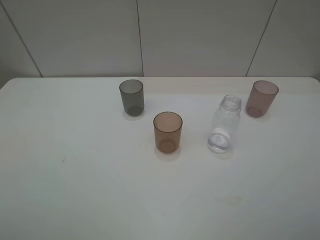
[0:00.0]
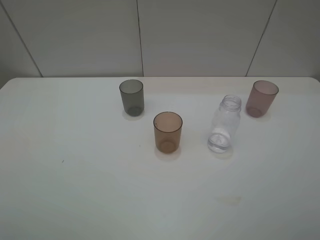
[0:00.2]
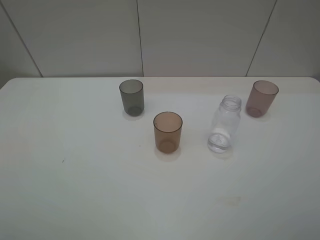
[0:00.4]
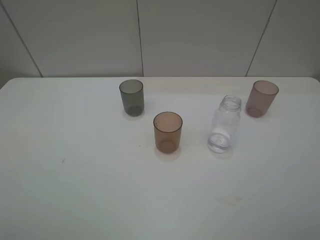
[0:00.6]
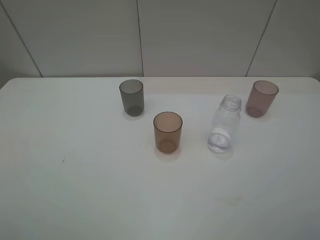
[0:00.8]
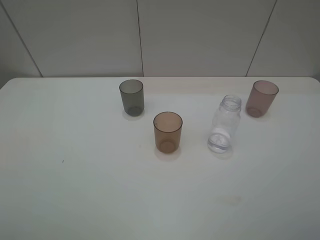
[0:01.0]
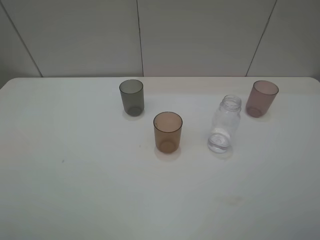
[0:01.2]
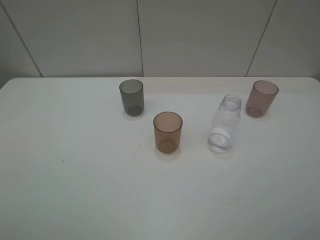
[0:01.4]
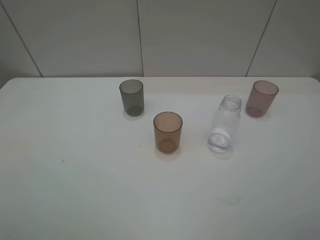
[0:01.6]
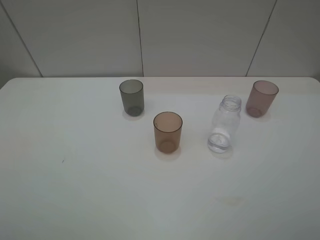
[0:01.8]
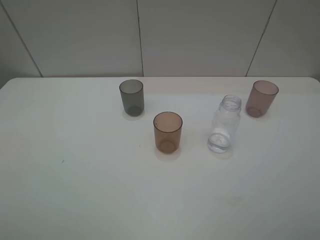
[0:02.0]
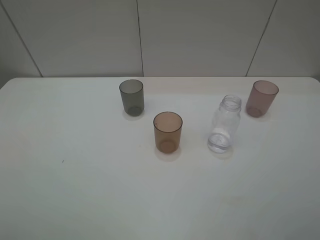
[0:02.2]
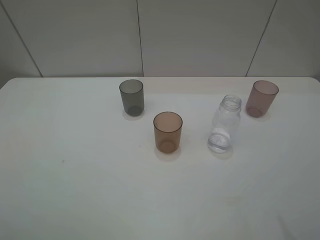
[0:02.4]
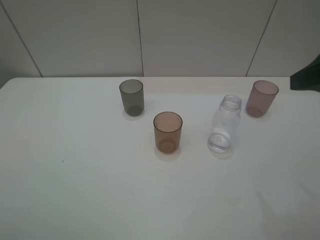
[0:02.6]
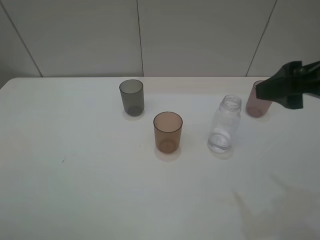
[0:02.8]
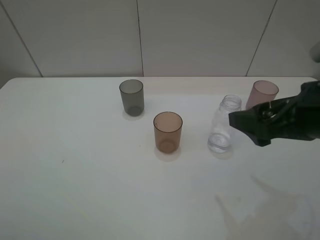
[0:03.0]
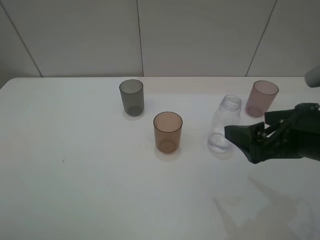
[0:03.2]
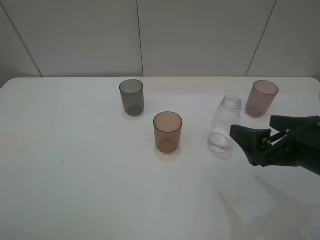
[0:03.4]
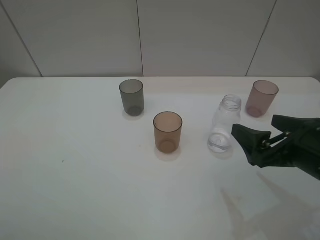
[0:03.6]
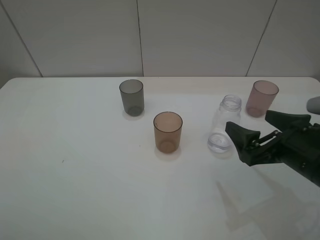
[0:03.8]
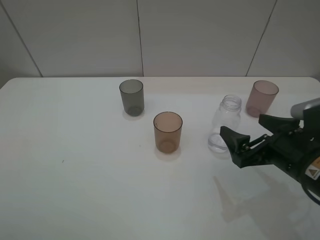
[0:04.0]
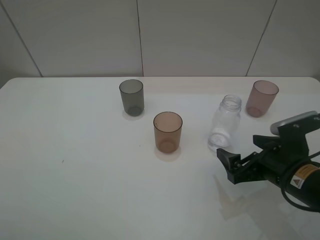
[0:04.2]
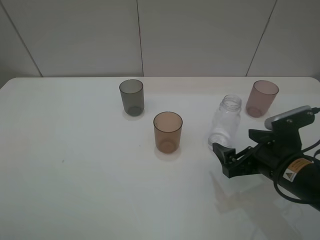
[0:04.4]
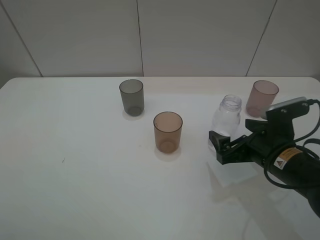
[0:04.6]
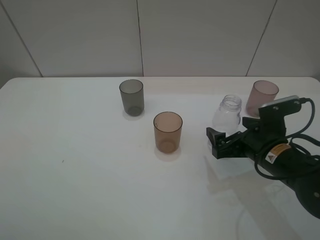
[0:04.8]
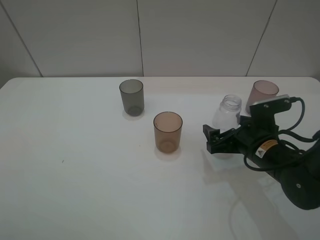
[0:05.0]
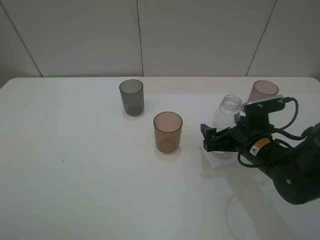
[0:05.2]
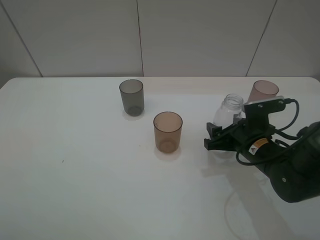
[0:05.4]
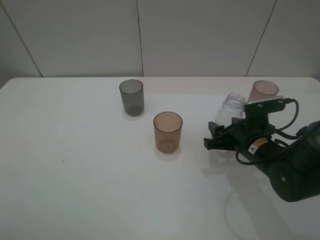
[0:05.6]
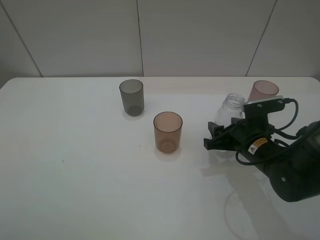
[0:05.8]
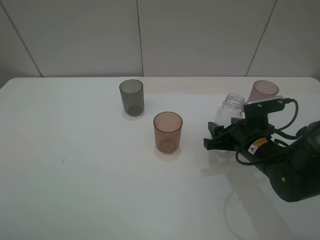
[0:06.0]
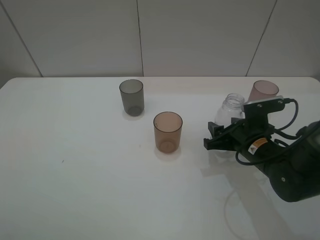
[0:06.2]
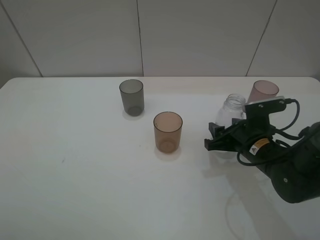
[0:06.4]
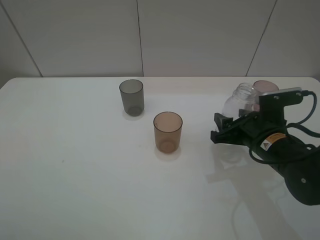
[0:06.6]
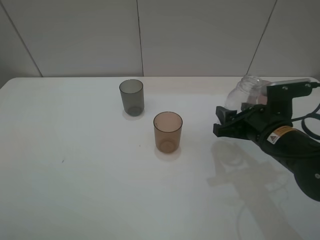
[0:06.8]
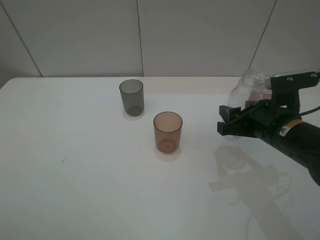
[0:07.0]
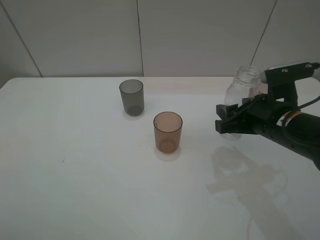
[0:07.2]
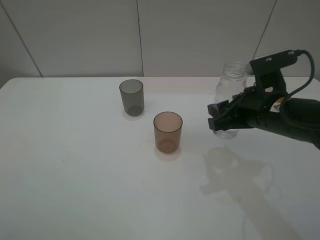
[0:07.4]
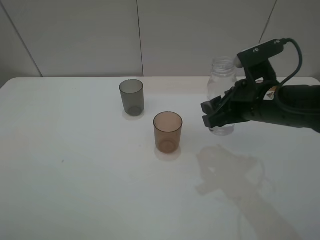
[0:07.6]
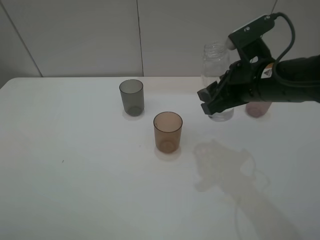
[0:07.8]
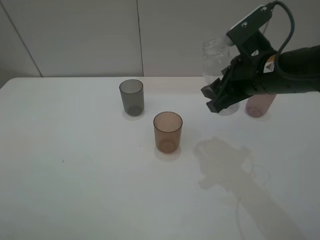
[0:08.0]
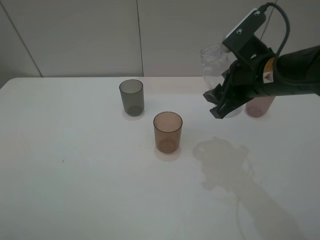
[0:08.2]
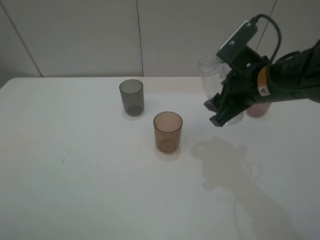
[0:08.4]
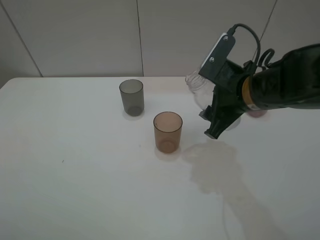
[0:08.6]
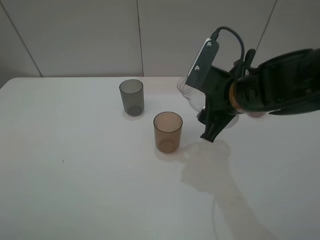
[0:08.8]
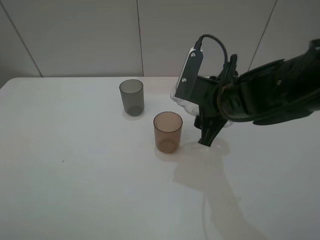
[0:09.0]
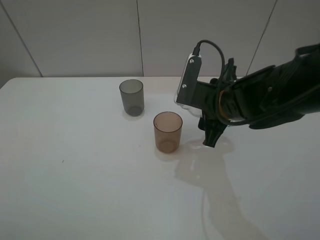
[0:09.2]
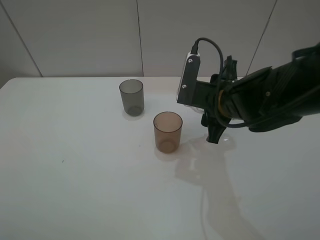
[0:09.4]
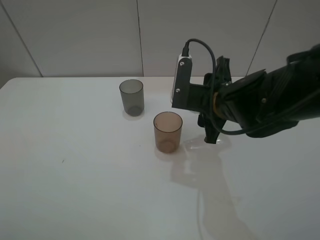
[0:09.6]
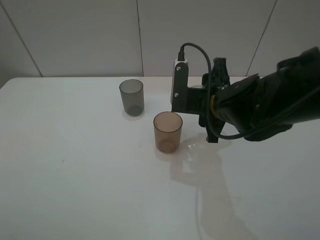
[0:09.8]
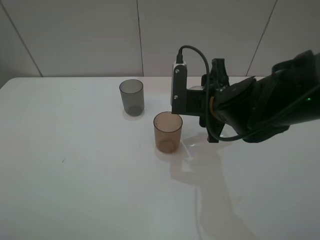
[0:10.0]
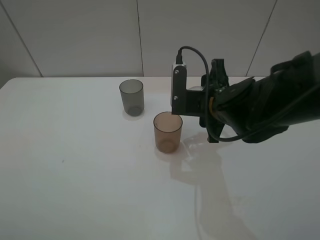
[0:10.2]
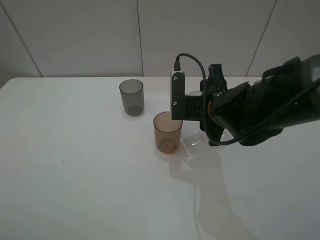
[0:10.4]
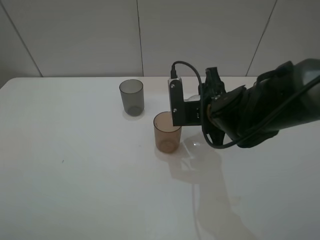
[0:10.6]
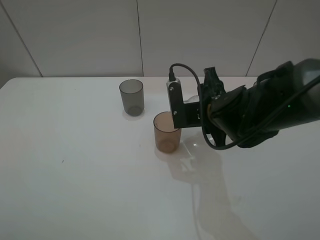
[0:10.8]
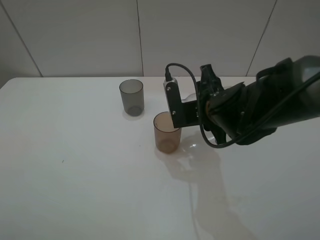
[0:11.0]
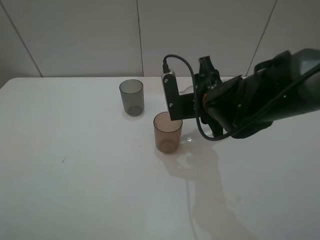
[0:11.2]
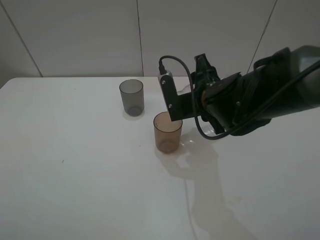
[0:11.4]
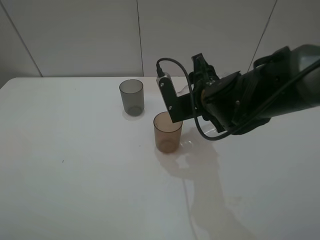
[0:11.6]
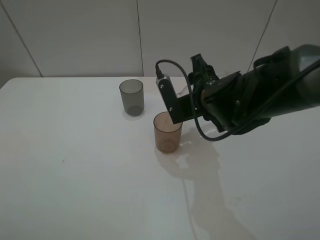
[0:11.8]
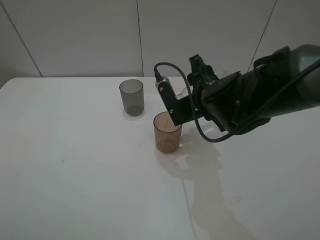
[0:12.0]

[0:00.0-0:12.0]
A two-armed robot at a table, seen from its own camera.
Task of the whole recording: pick up the bottle filled with water and pour water into the middle cup of the three cups.
Step, 0.0 to 6.4 s: Grasp the transparent bottle with the right gripper.
0.0 to 1.6 s: Both grippers stay about where they are.
1.6 to 3.0 s: The right gripper shifts roughly 15 cm forward and to the left.
3.0 to 4.4 s: The right gripper is displaced downward by roughly 15 cm.
4.4 to 6.0 s: The right gripper travels forward by some 5 cm, and closes.
6.0 to 7.6 s: The right gripper travels upward by about 10 cm.
7.6 to 9.0 s: The right gripper ends up approximately 5 cm from where it was.

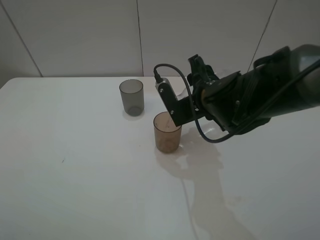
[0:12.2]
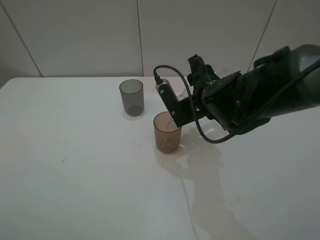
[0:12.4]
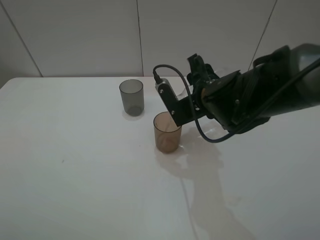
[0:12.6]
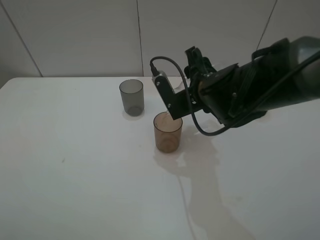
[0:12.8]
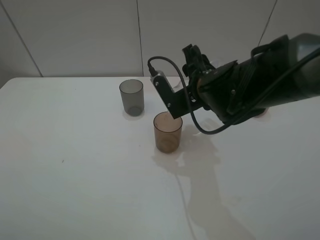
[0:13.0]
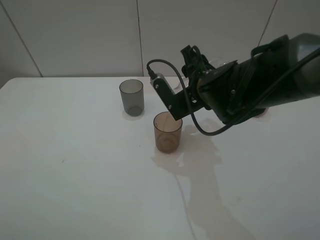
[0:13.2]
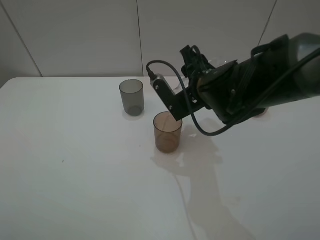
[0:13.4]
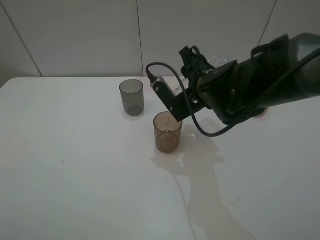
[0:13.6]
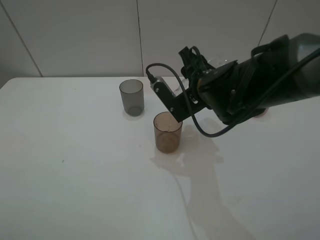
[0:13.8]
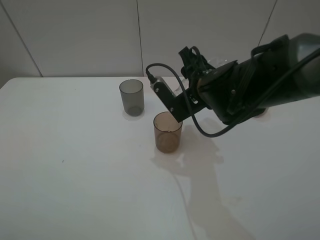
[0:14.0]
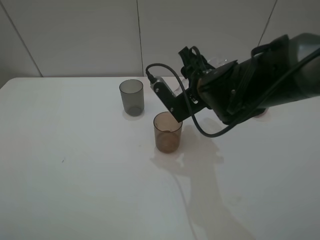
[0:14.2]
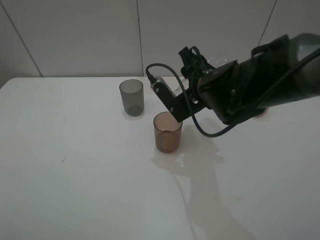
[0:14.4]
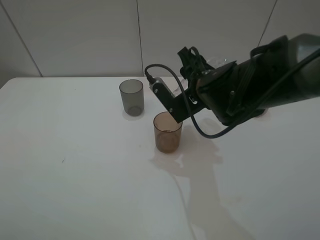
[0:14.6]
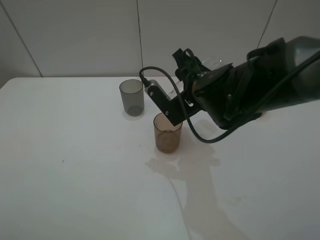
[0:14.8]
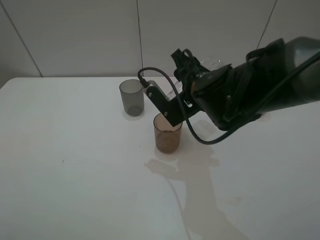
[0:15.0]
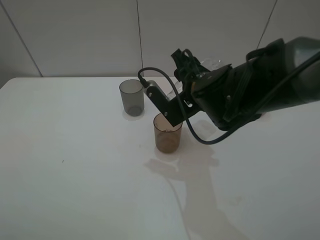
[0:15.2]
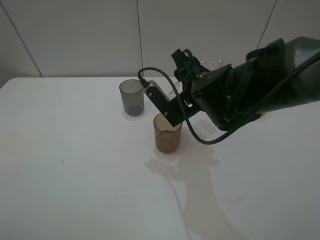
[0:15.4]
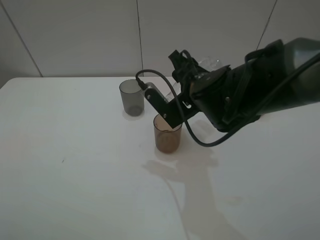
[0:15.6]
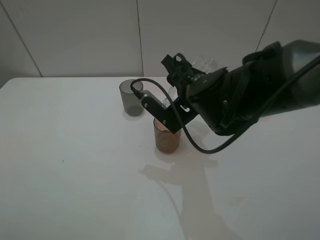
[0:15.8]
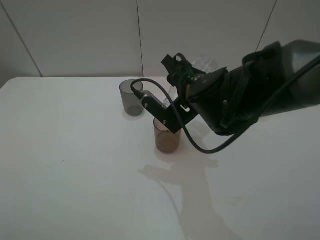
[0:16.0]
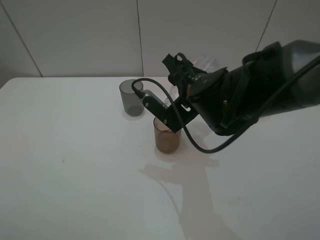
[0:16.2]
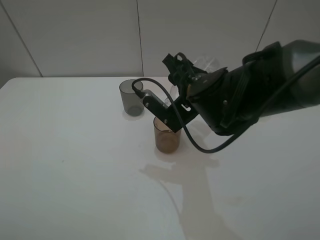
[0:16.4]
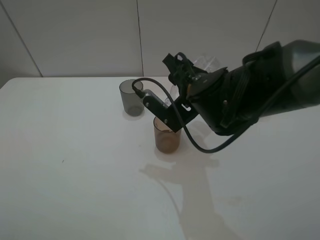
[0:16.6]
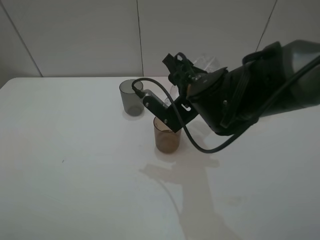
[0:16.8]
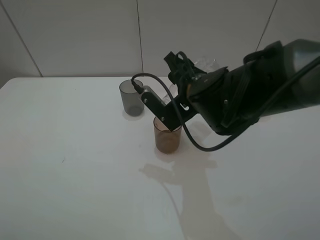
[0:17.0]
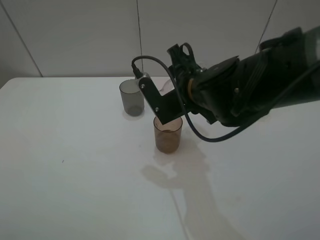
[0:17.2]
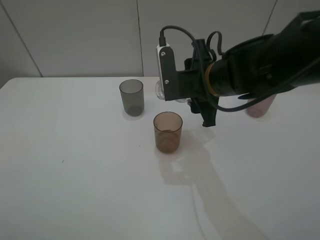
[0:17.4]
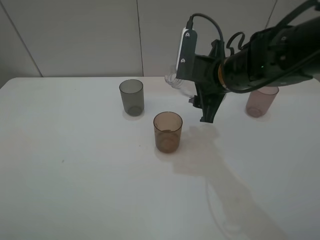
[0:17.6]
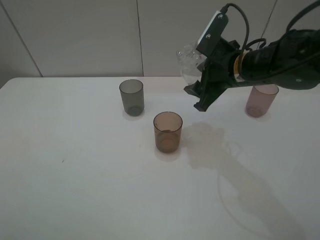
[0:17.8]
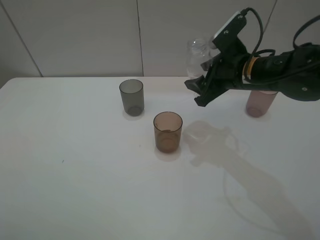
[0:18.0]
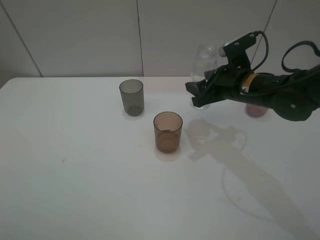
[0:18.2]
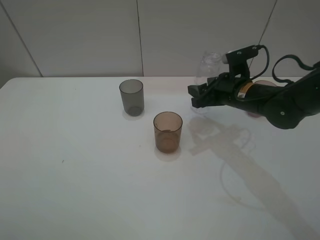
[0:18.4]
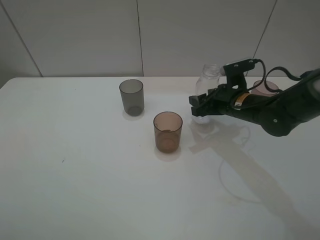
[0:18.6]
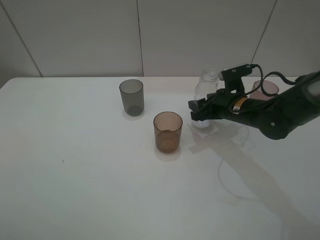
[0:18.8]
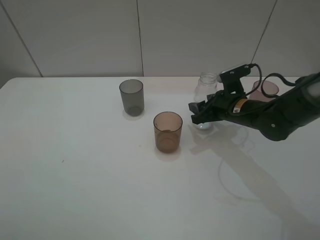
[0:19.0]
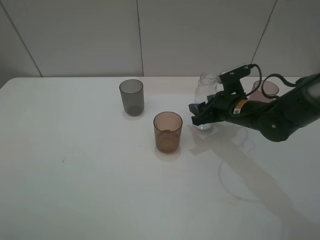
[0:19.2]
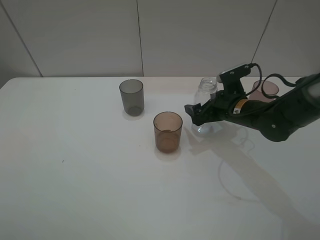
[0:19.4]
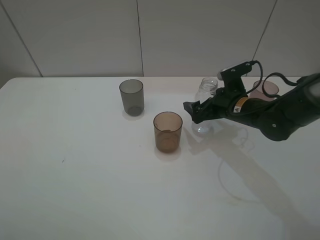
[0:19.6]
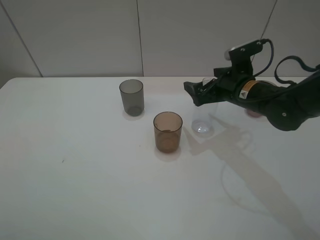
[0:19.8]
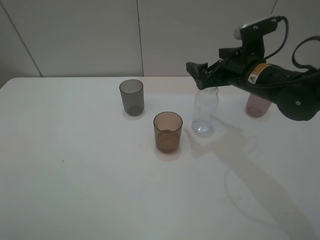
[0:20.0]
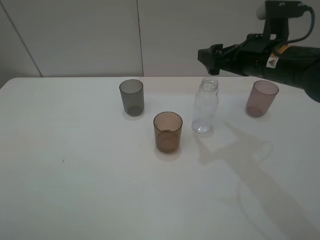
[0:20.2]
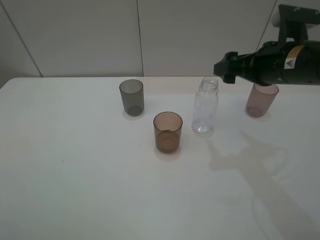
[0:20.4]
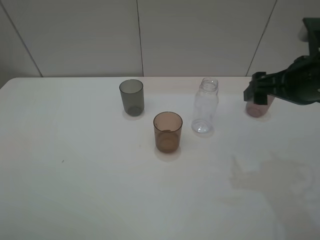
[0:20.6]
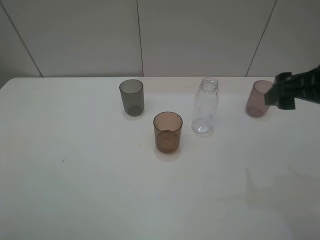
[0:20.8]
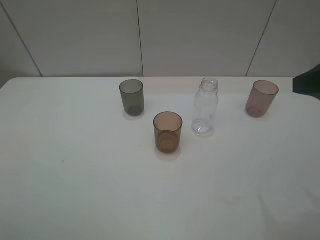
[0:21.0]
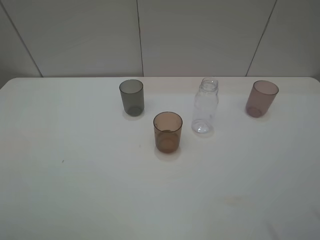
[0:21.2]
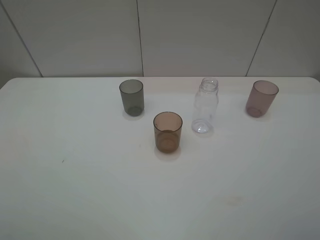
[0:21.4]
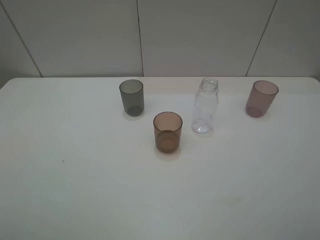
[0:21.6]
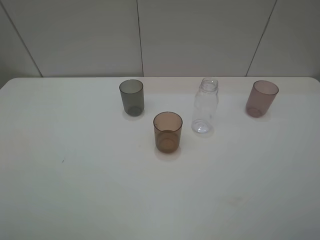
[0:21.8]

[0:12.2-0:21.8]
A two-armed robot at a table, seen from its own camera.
Task of the whole recording: pick up the bottle filled with water and pour water into the middle cup of the three cups.
Step, 12.2 to 17.6 s: Pour water from transparent bottle tobrown cup with the right gripper.
Step, 17.8 to 20.0 s: Place the transparent bottle with the right gripper.
12.2 to 15.4 s: The grippers move only a little.
15.4 to 17.0 s: The grippers stay close to where they were, moving slightly.
17.0 to 18.6 s: The right gripper goes roughly 15 cm to the right, downward and forward.
18.6 to 20.2 s: The right gripper moves upward, roughly 15 cm, and opens its fingers.
20.2 to 21.8 s: The right gripper shifts approximately 30 cm backward.

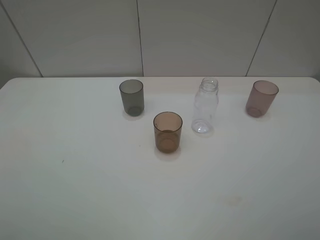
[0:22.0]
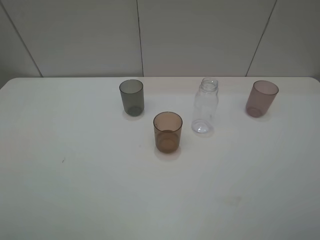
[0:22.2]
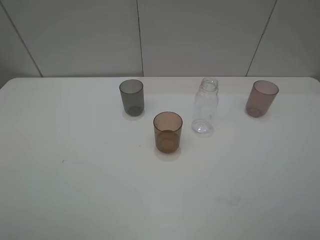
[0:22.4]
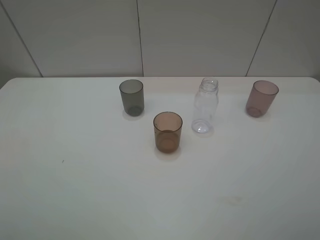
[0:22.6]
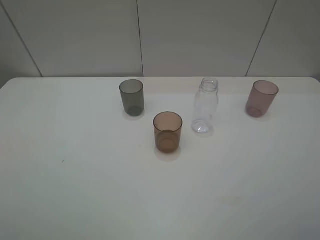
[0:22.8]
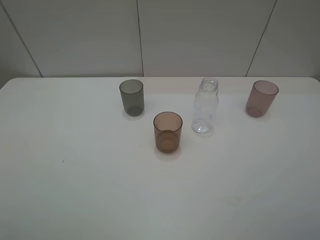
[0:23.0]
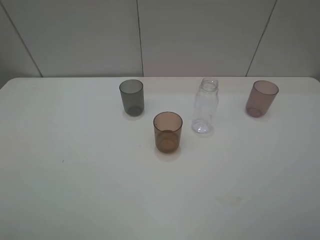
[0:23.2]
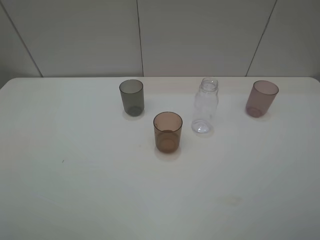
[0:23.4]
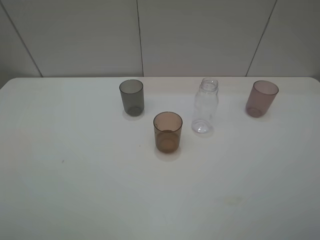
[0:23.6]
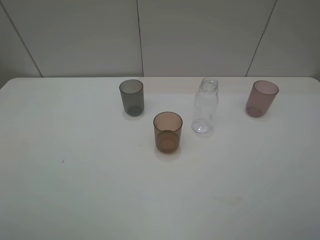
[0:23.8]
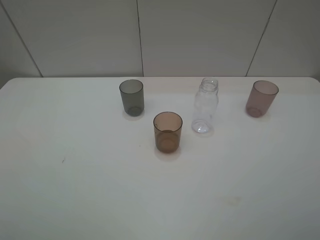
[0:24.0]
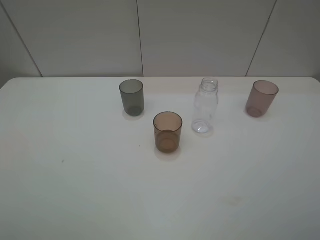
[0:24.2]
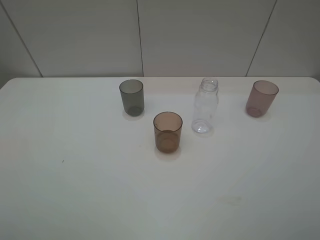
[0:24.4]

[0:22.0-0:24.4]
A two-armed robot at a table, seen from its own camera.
Task of the whole recording: pick up the bottle filled with water and pour water into the middle cup of the three cups.
23.2 to 24.4 s: Neither gripper changes place.
